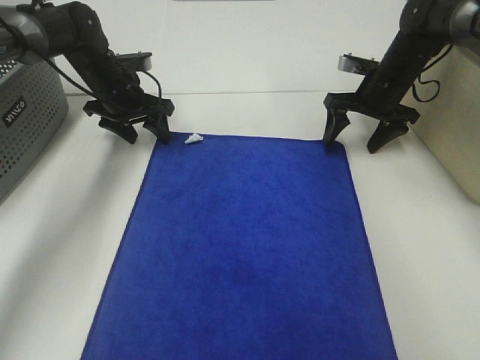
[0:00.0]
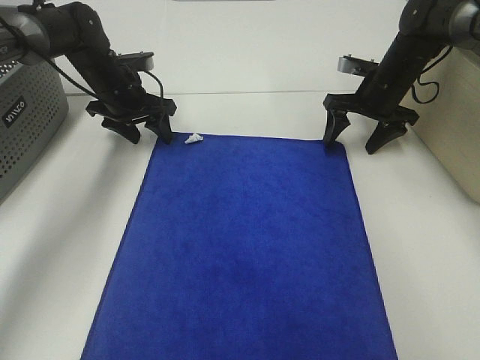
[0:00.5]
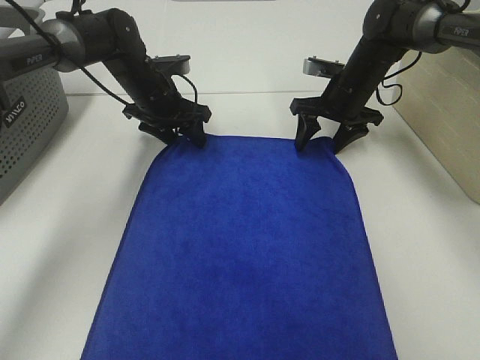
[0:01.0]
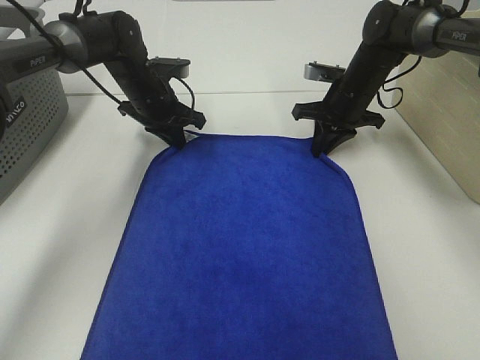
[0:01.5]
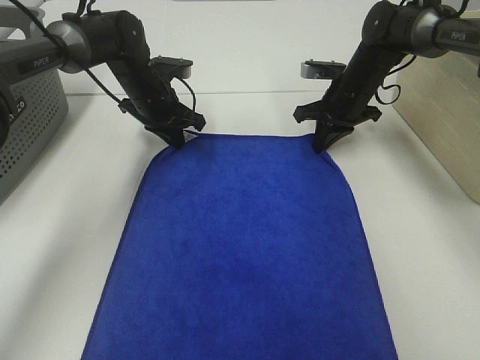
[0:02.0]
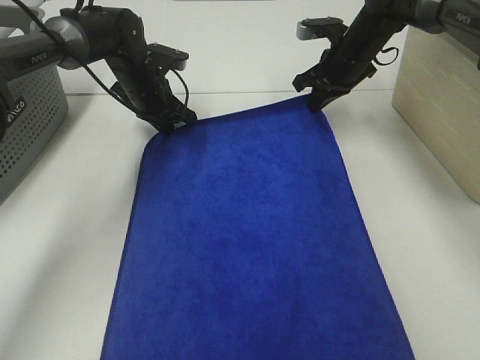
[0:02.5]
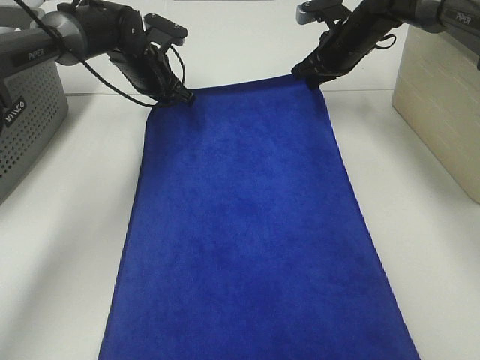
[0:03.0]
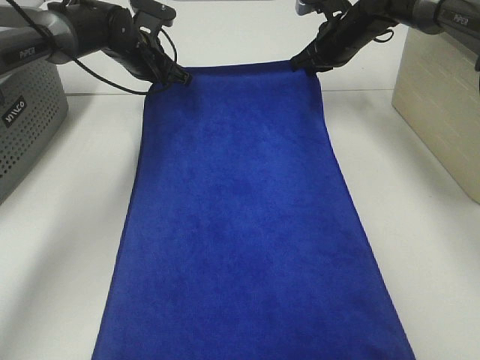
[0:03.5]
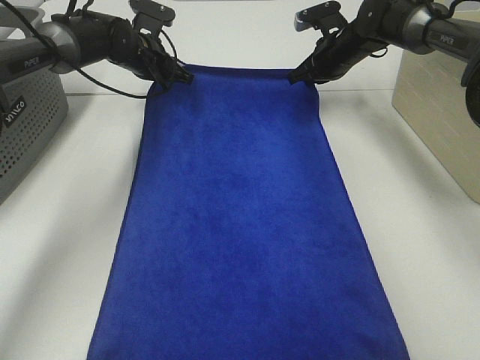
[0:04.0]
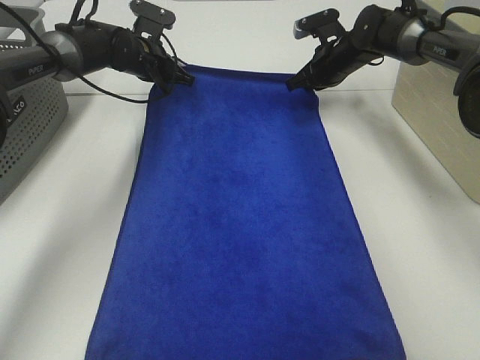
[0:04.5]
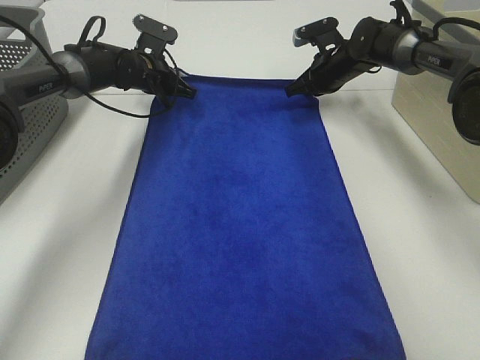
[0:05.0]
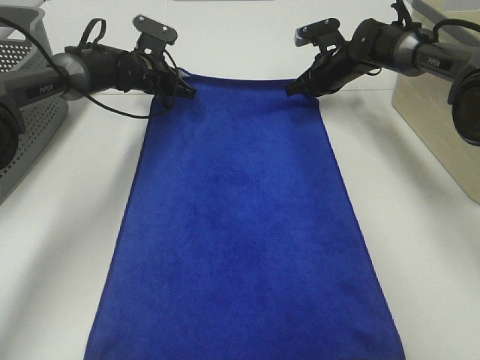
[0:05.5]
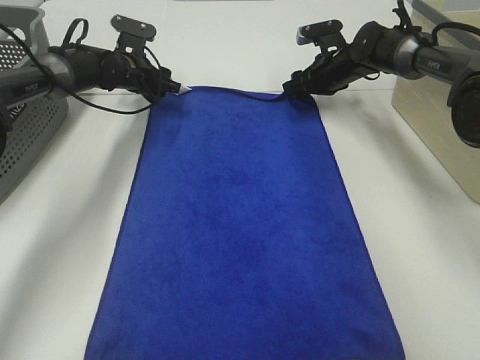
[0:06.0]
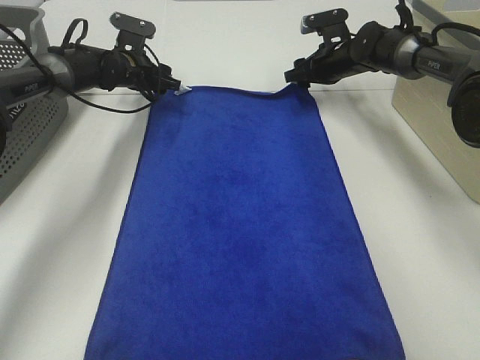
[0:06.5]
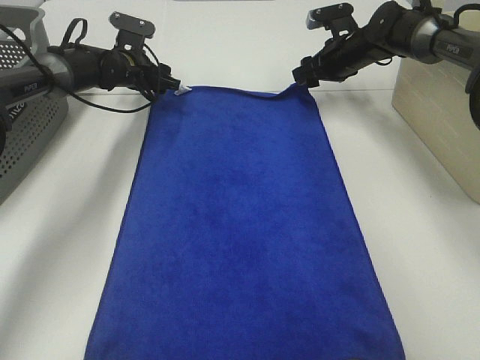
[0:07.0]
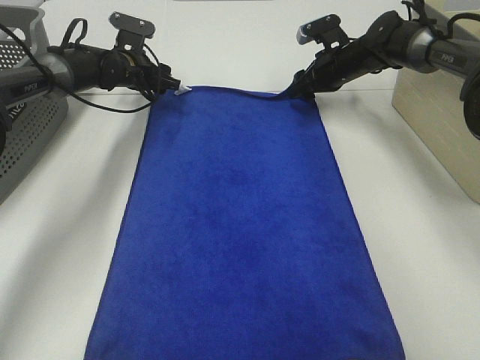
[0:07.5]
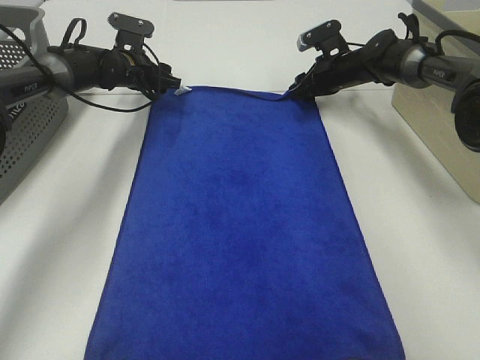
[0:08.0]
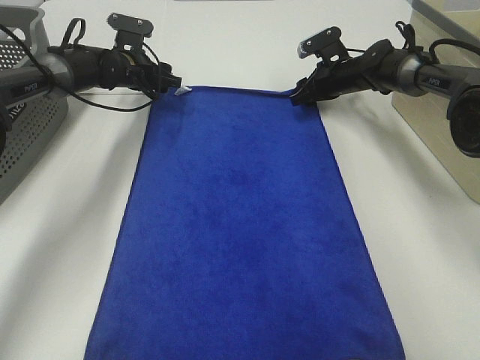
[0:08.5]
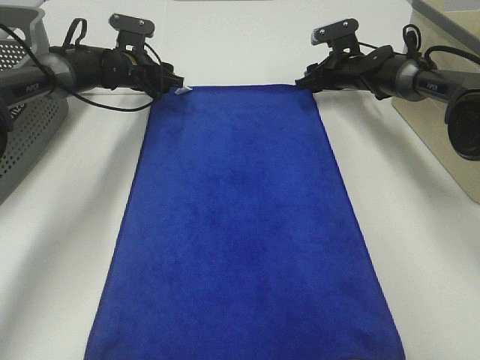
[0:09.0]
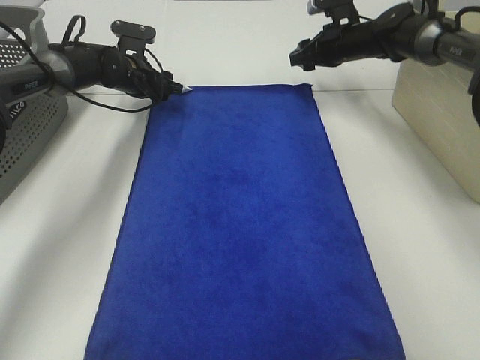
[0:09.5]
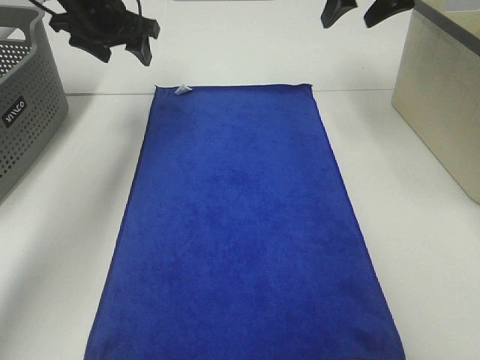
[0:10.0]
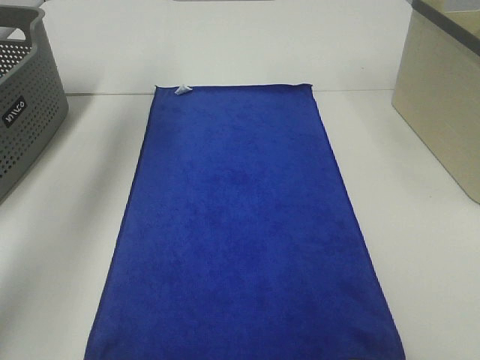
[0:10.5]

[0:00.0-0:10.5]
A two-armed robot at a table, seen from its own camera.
Task of the whole recording: Remove the towel and place it.
Step, 0:00.0 to 0:02.5: Right hand:adjust the blue towel.
0:00.0 to 0:02.0: The right gripper moves some 5 cm, and closes; the left gripper shifts approximately 5 cm to the right, and closes up.
0:02.0 to 0:04.0: Both grippers travel together forward, about 5 cm.
0:04.0 to 0:06.5: The left gripper shifts by about 5 cm, and opens its fingers. The right gripper opens.
0:06.5 to 0:08.5: There are only small adjustments of the grippers.
0:08.5 to 0:10.5: The grippers both shift upward and backward by about 35 cm.

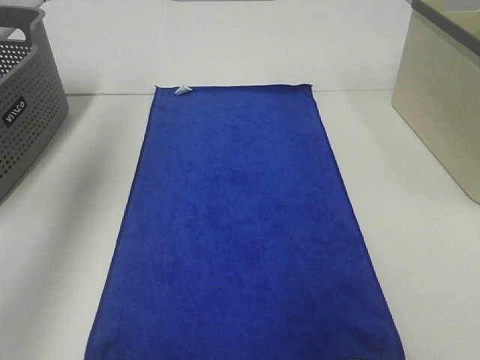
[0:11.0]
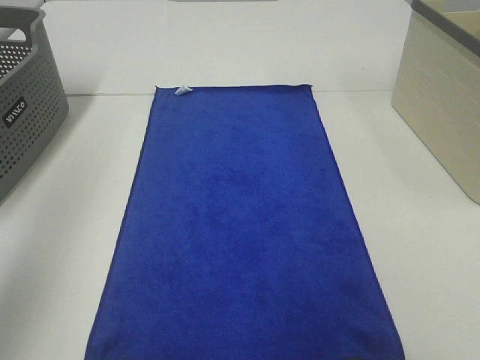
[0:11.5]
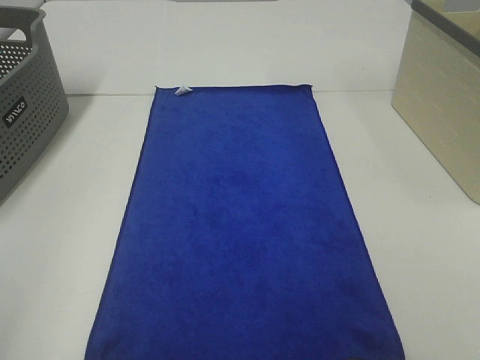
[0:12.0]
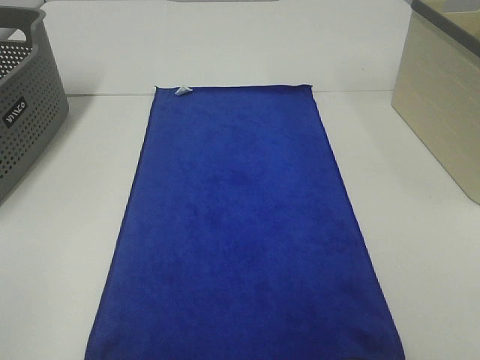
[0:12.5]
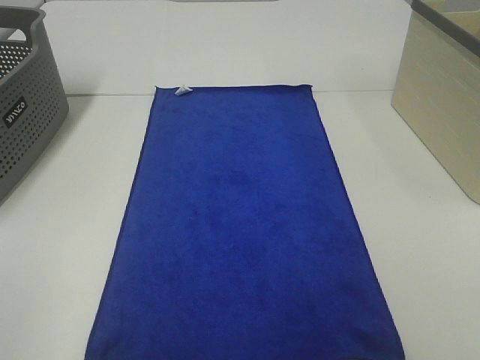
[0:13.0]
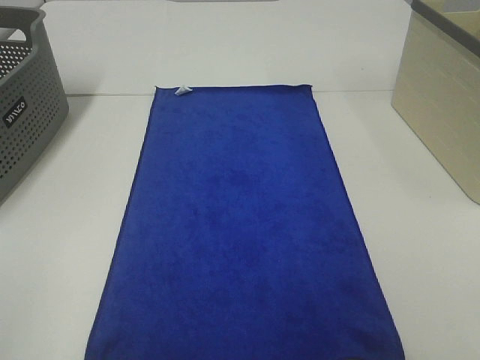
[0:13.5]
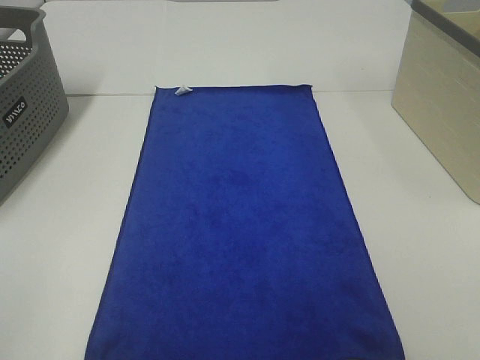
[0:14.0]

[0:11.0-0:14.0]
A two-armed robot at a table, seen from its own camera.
Task of the whole recording: Remove the towel and place it.
0:11.0 to 0:12.5: The left gripper goes about 40 cm backward and downward.
